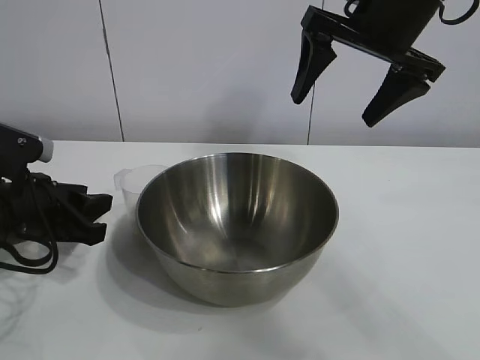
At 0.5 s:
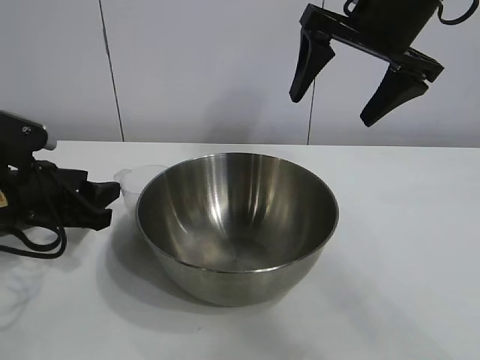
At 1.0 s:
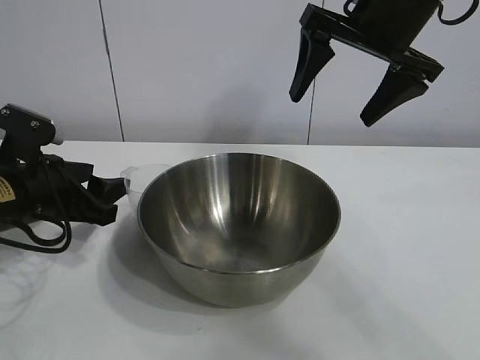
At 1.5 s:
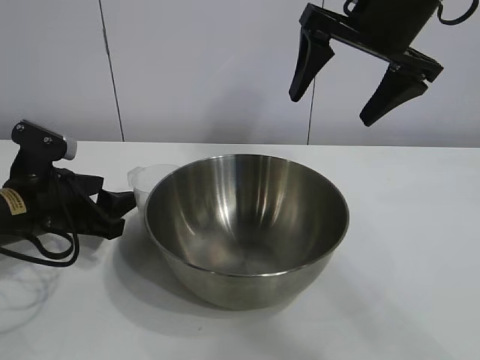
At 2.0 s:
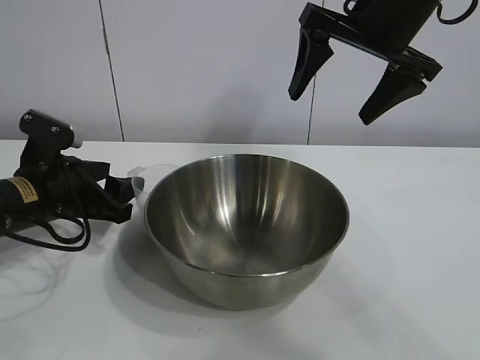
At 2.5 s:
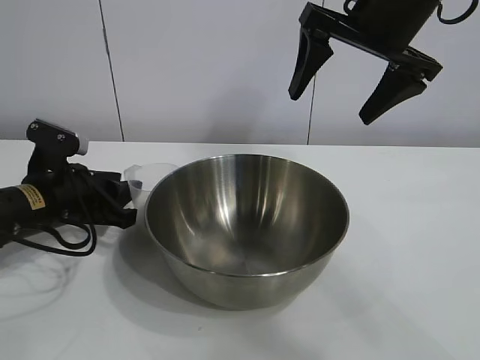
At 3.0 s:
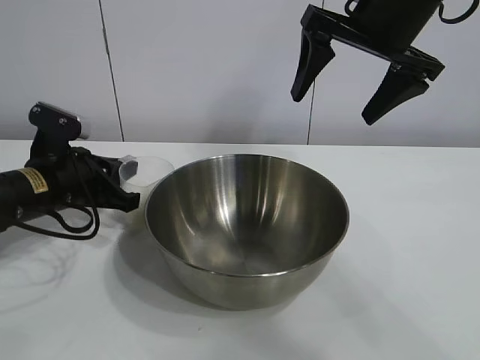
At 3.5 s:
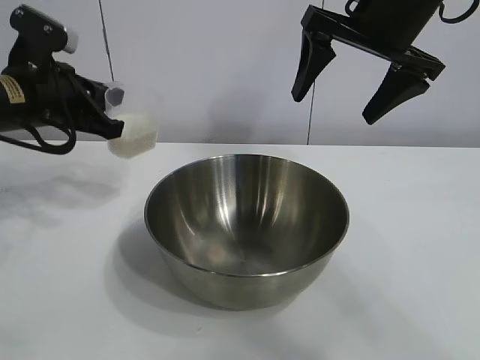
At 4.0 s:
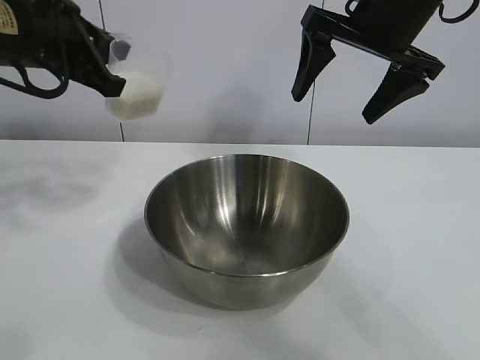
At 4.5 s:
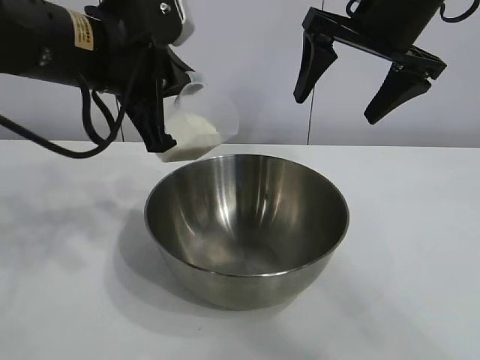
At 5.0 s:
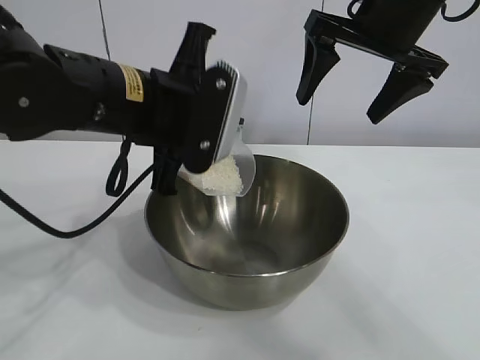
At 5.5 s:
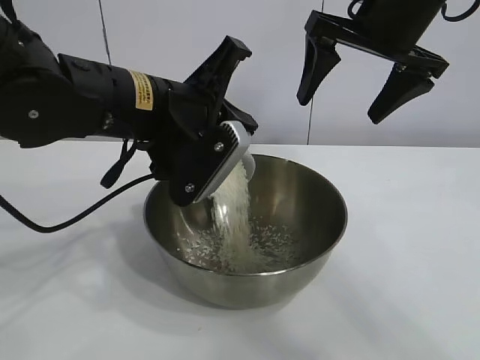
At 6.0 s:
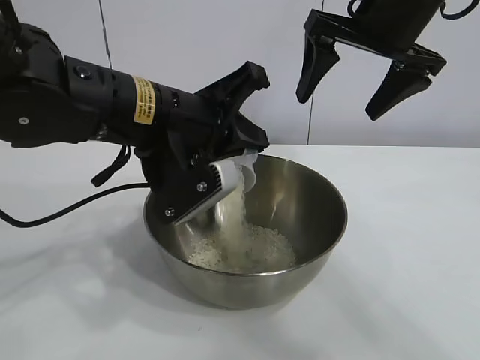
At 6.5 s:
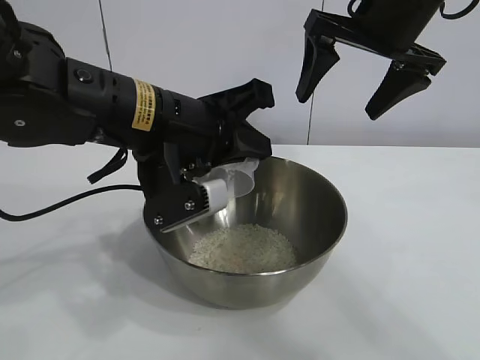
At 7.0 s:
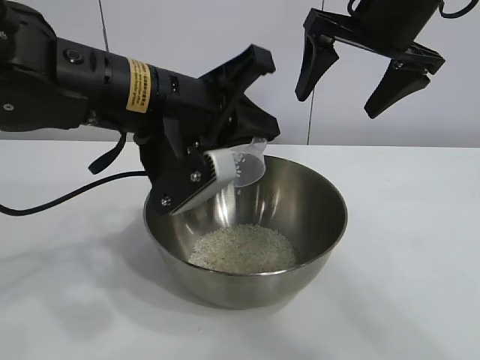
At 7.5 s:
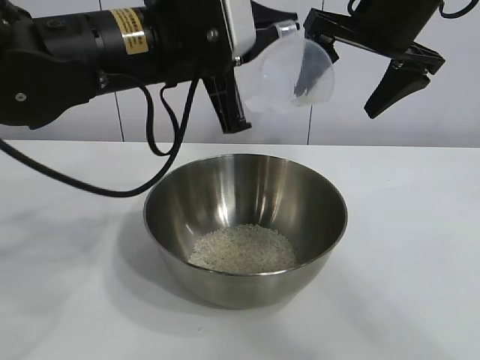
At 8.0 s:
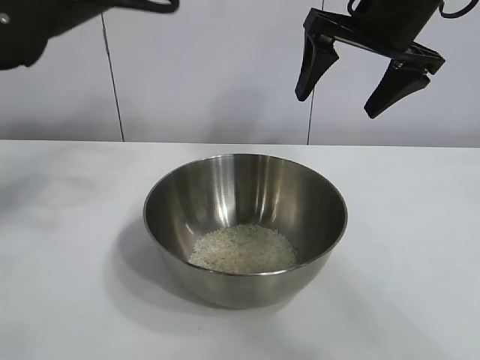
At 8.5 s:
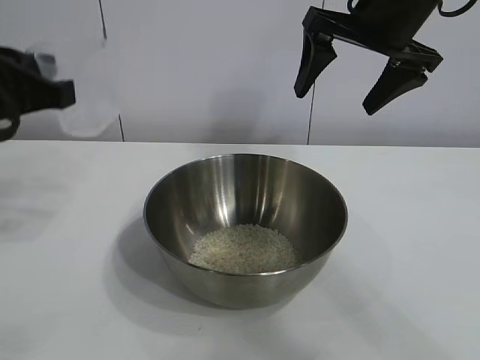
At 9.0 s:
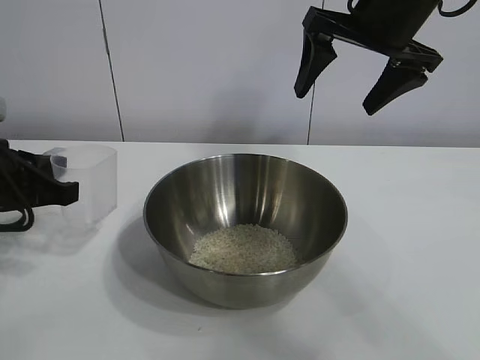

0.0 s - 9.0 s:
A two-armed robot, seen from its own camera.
Task of the whole recording: the right gripper grasp the rice container and place it in the center of the table, the left gripper grasp the rice scoop and pour the rice into the rice container.
Step, 0.0 s - 2.5 s: Grasp the cup with rice in it with left gripper.
Step, 3.0 s - 6.5 s: Pour the rice from the cup into the bowl with the left gripper.
